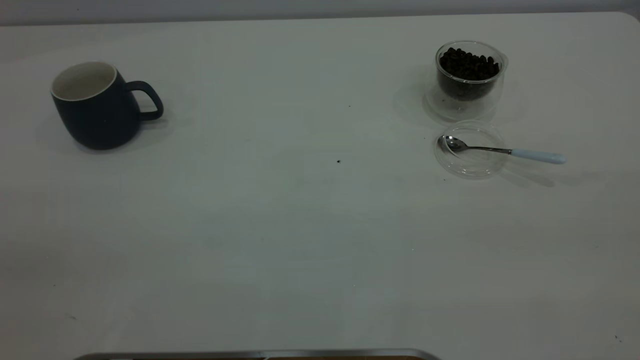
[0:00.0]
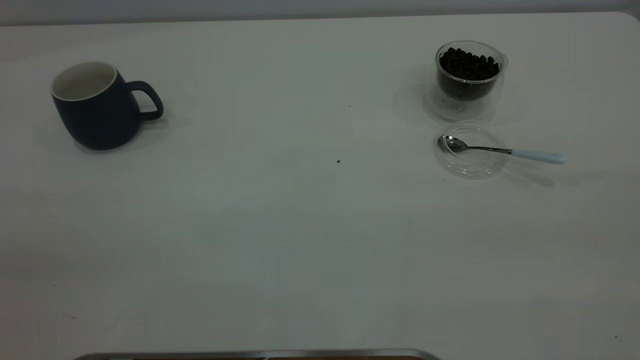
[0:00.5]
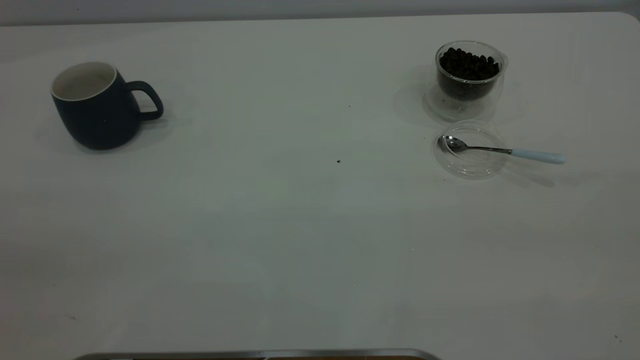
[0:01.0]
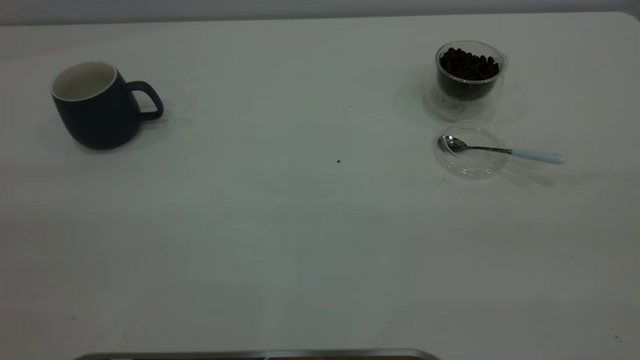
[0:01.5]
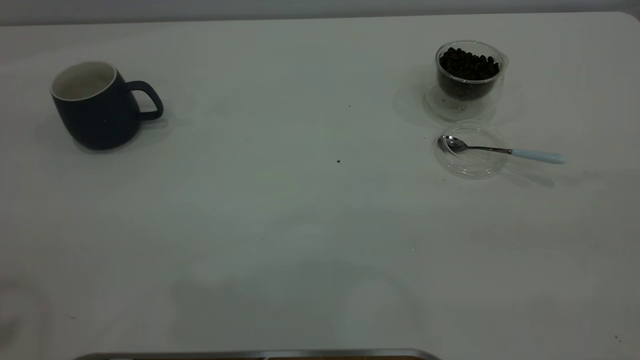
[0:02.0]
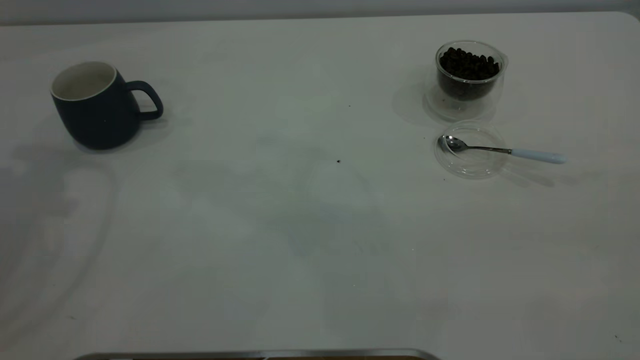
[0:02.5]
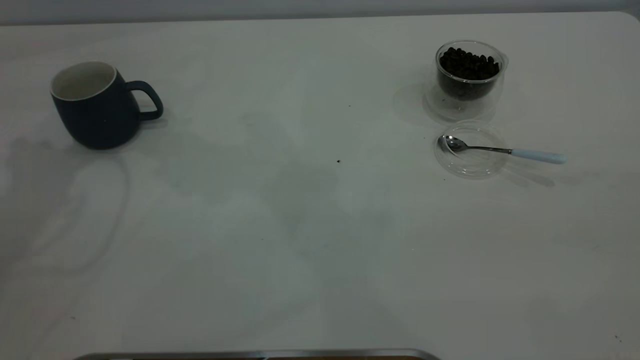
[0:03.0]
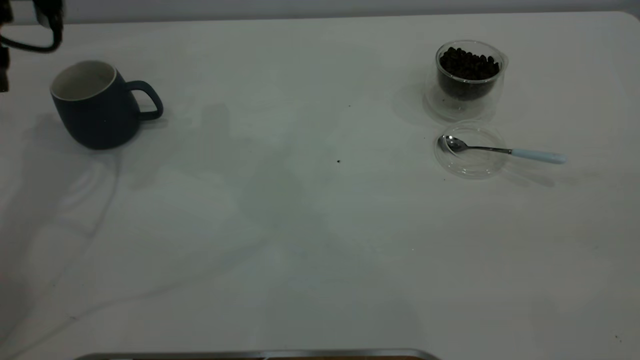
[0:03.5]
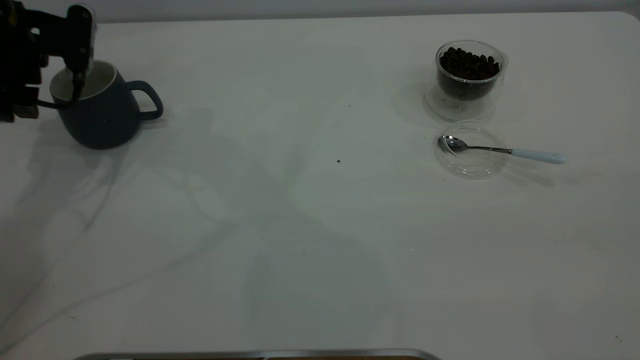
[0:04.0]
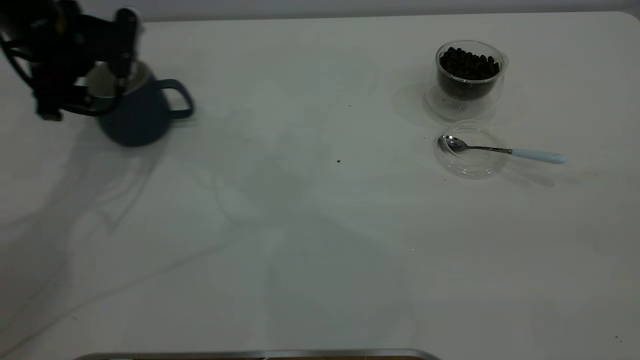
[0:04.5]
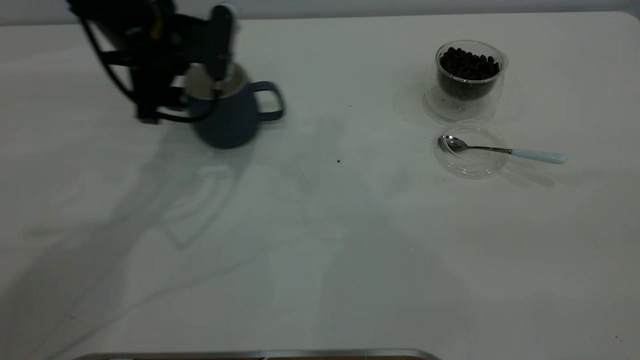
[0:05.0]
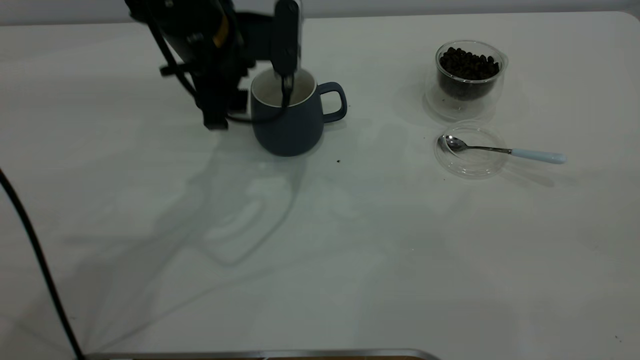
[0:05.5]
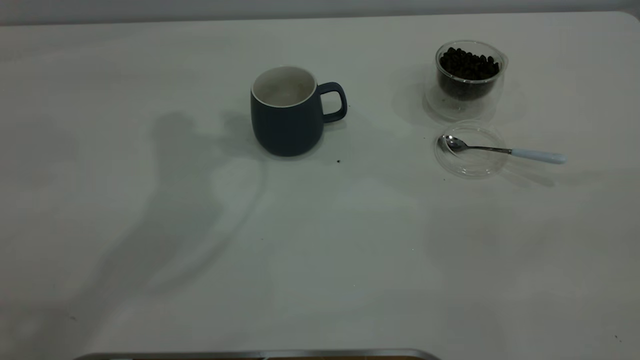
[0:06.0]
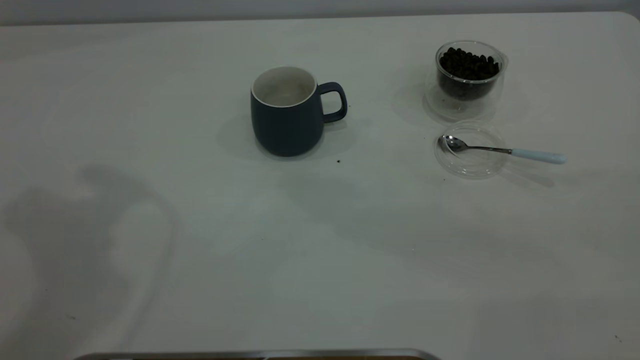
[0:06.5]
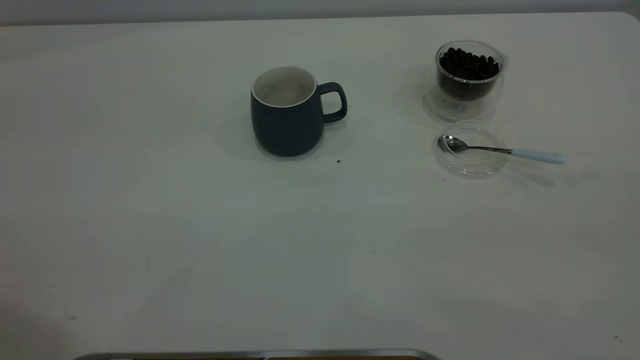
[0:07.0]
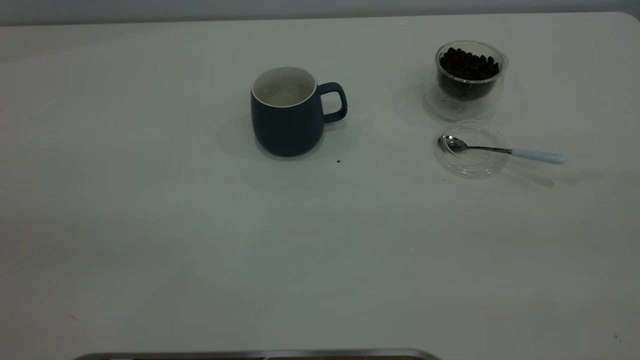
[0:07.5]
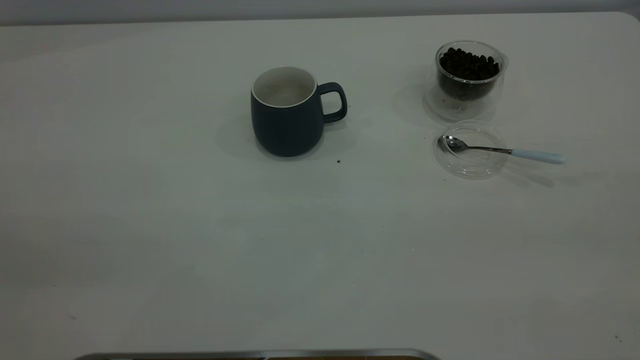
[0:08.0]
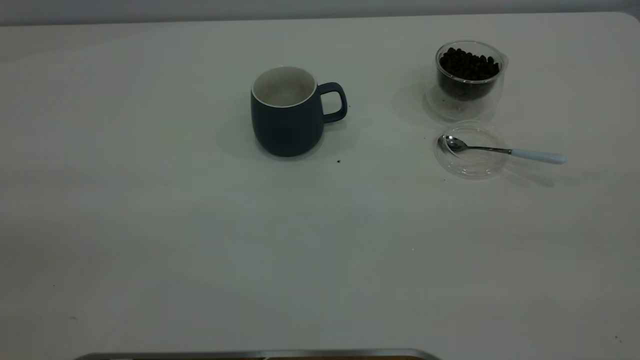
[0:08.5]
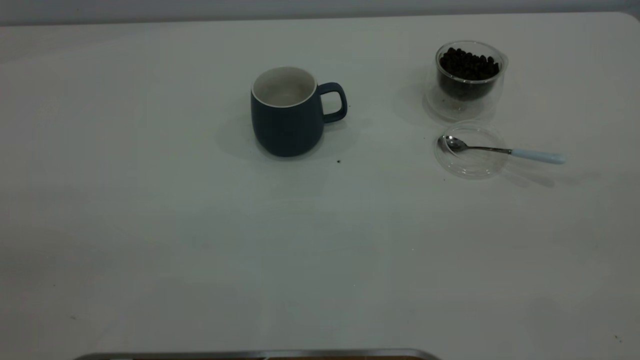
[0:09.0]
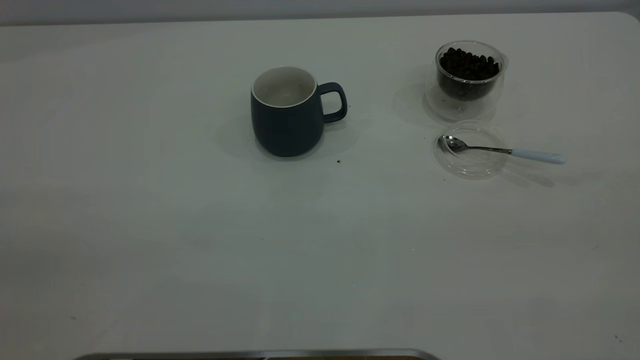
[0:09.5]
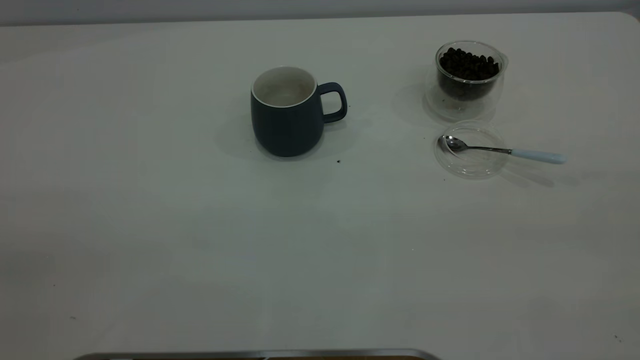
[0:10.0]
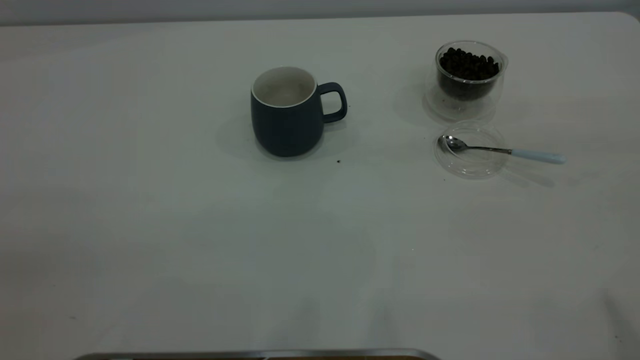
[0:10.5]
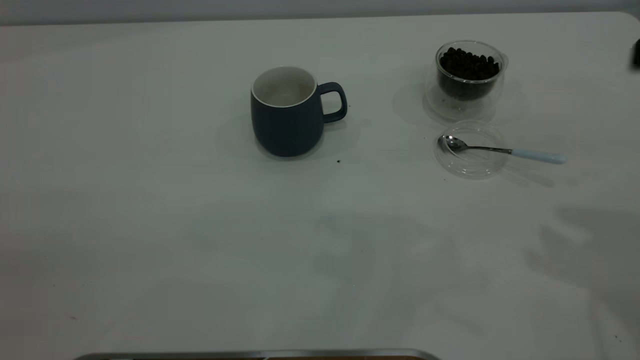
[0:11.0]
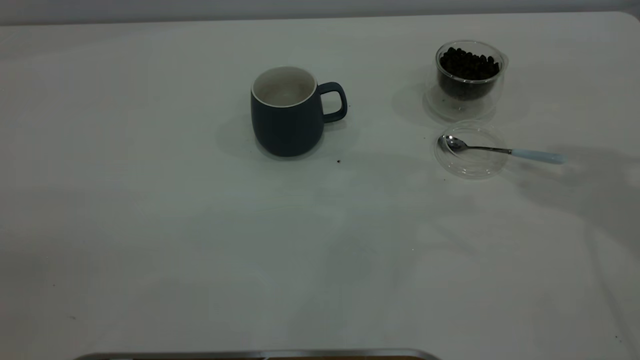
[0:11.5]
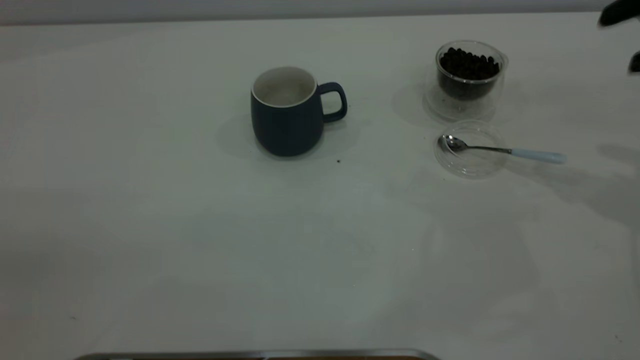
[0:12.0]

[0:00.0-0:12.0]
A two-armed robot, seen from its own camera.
Task of the whole recording: the left gripper place the grey cup in the center of the table, the right gripper take the blue spoon from the cup lid and scoop out the coffee beans from the coffee cup and put them into the grey cup, the right gripper put the spoon back into the cup lid.
Step, 0:00.0 to 0:05.5: Move the cup to the center of view.
0:02.0 to 0:04.0: The left gripper moves downward and forward, about 35 cm.
0:04.0 to 0:06.0: The left gripper heads upward and to the right, covering about 25 cm.

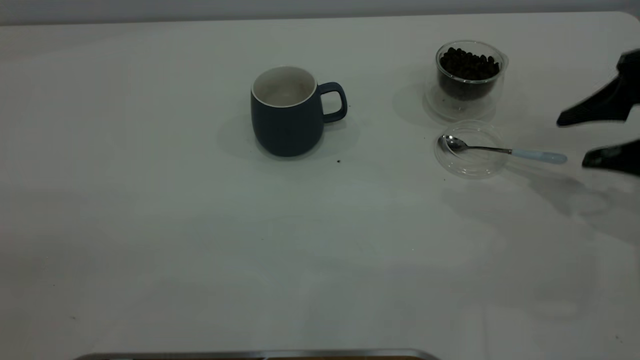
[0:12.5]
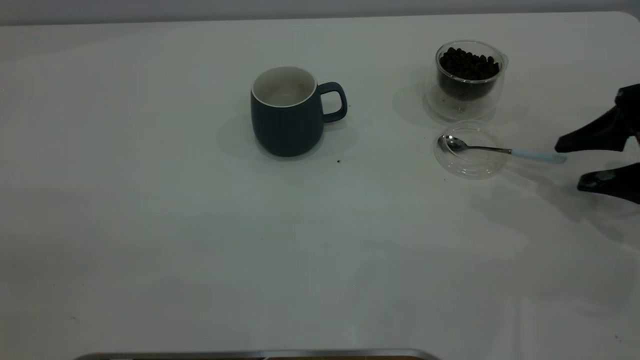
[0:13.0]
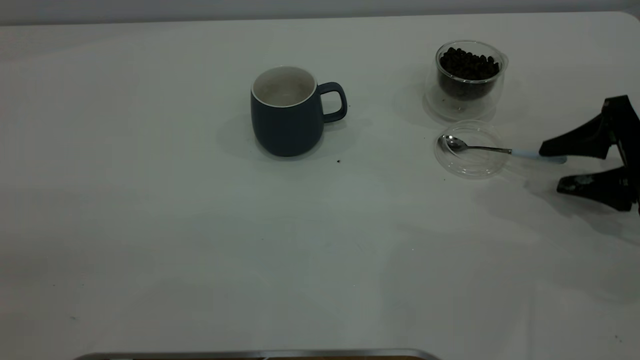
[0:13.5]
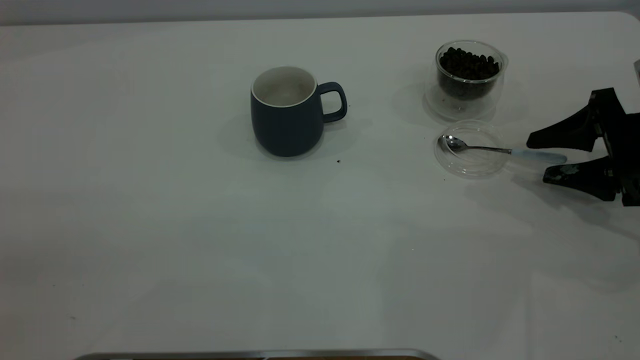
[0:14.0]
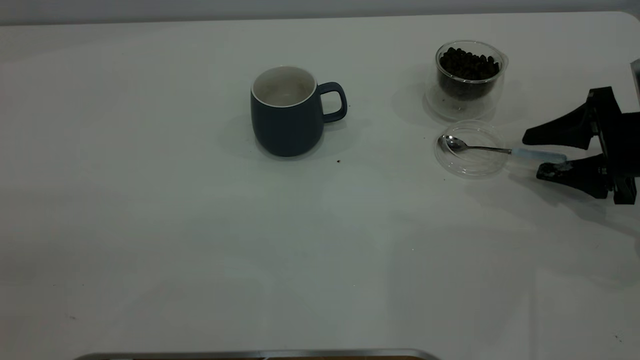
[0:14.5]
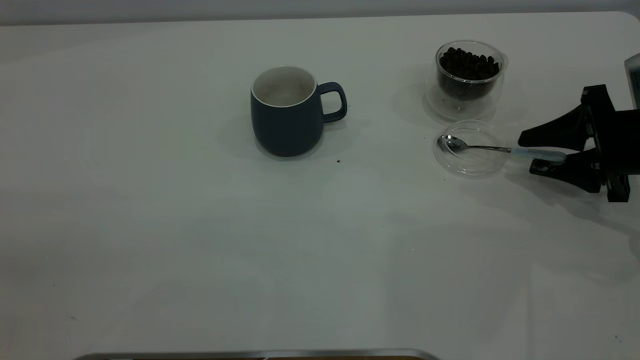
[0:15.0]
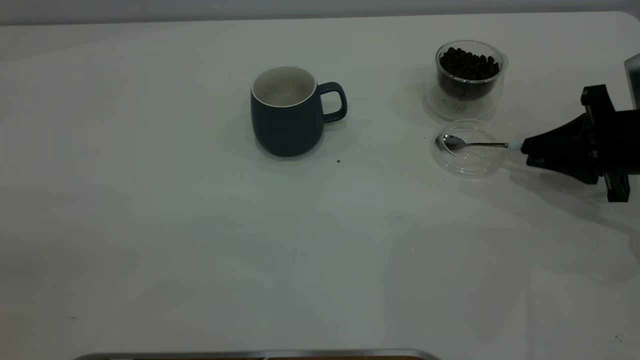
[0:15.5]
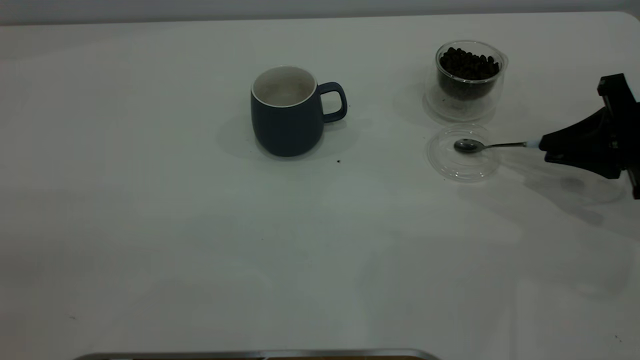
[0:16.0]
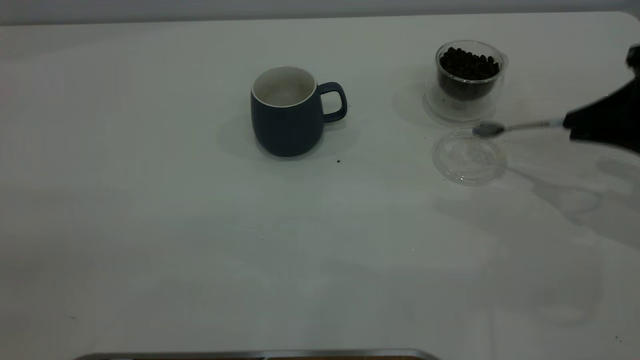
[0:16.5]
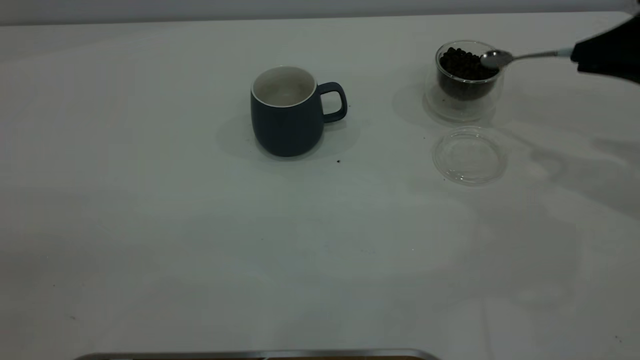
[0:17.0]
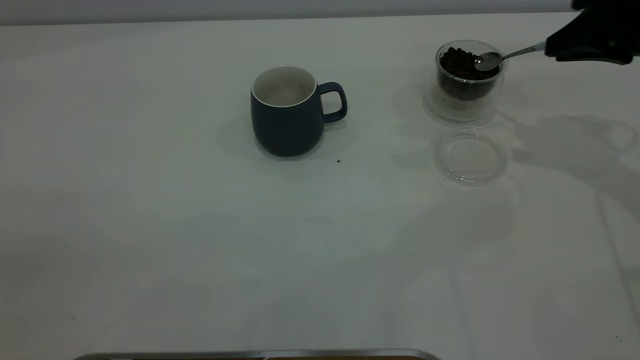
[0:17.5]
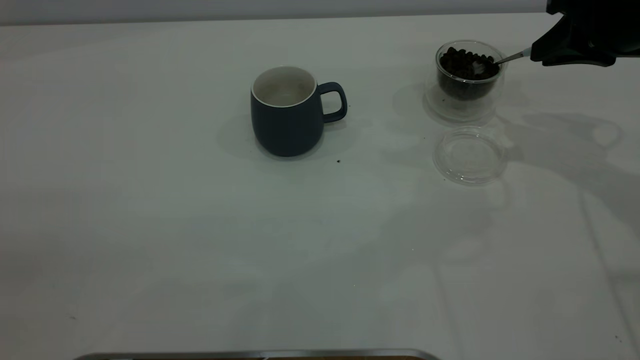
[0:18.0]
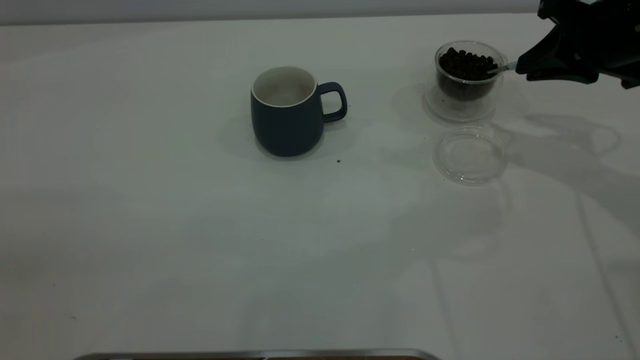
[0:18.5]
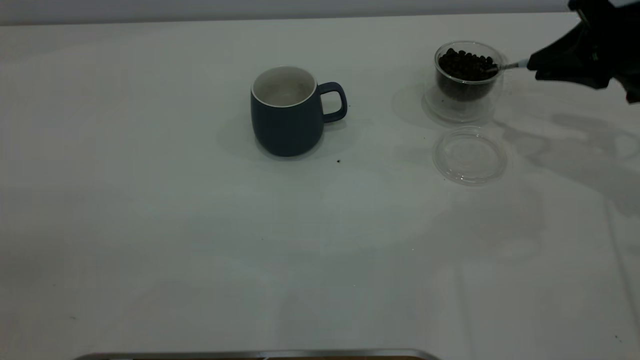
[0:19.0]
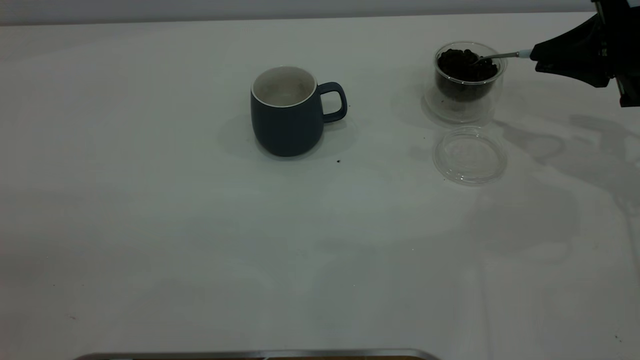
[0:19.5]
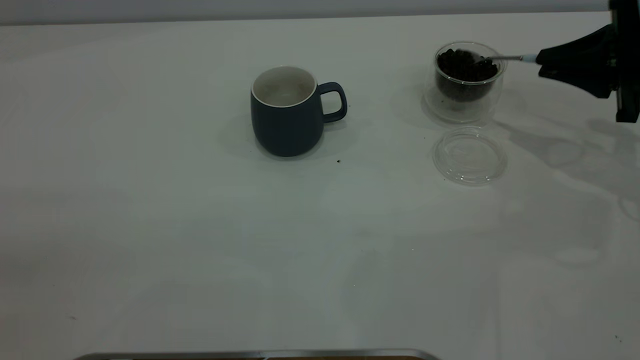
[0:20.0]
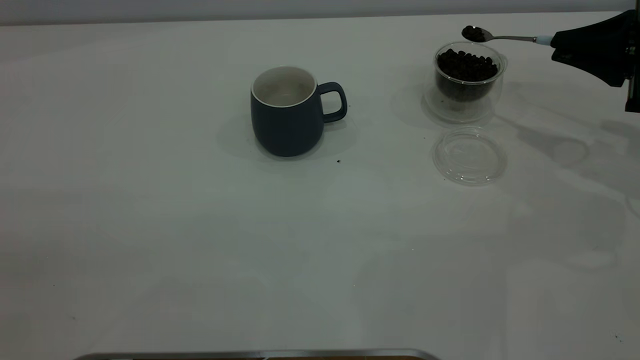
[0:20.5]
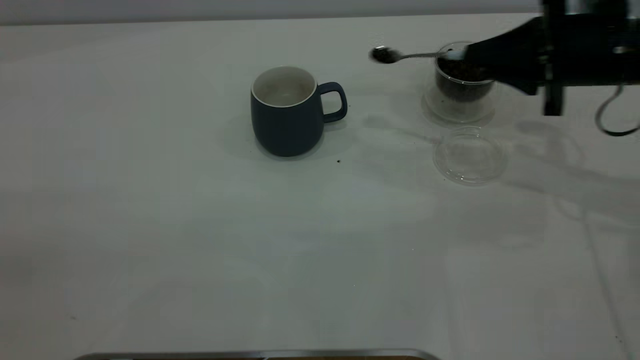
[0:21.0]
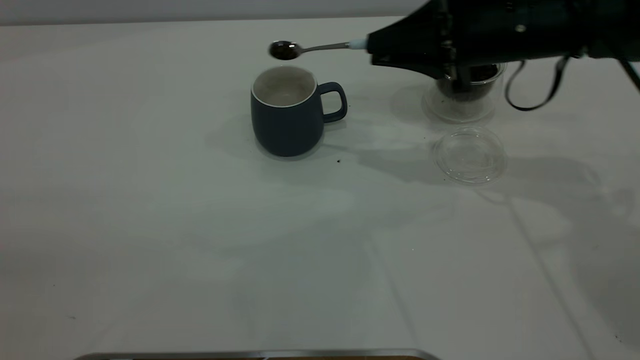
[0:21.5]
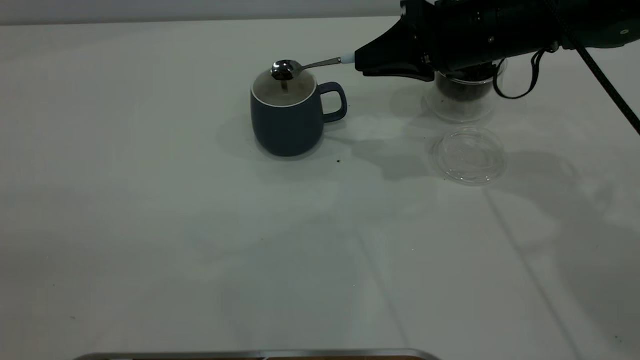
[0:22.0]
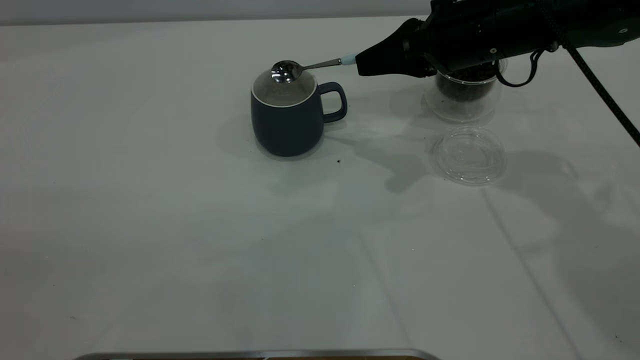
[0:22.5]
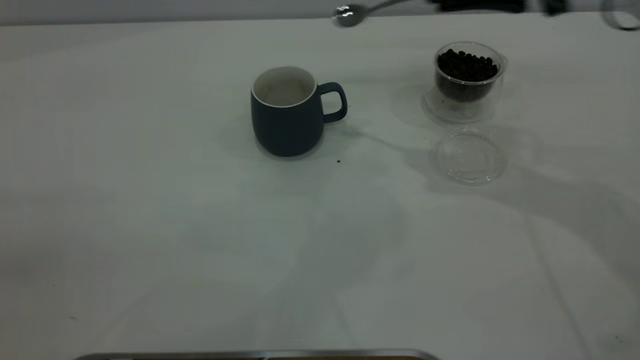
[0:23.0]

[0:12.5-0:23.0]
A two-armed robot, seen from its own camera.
Task of the whole recording: the left gripper place the grey cup in the center of the table, the right gripper take the blue spoon from the cup lid and scoop out the coffee beans from the coffee cup and put them into the grey cup, the right gripper put the spoon back into the cup lid.
Step, 0:12.5 to 0:16.5: Pick up the spoon.
Step, 0:17.0 to 0:22.5: Scoop a spoonful of beans into the cup.
0:12.5 to 0:14.5: The right gripper is displaced downward by approximately 5 cm.
0:14.5 to 0:16.5: The right gripper shifts approximately 10 cm upward, and closes up.
0:16.5 to 0:19.0: The right gripper heads forward, covering about 10 cm.
0:19.0 to 0:21.0: The right gripper travels to the left by approximately 5 cm.
0:21.0 to 0:23.0: The right gripper shifts some 10 cm upward.
